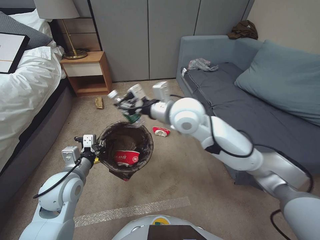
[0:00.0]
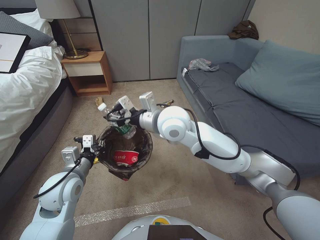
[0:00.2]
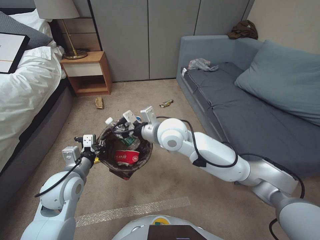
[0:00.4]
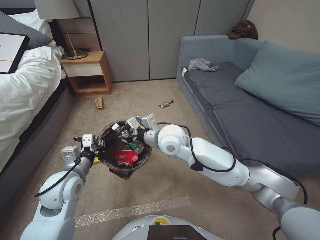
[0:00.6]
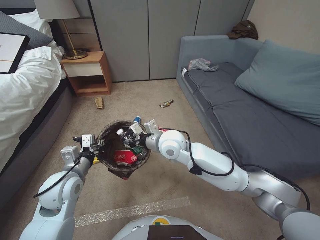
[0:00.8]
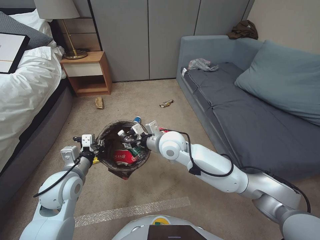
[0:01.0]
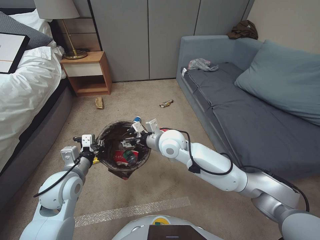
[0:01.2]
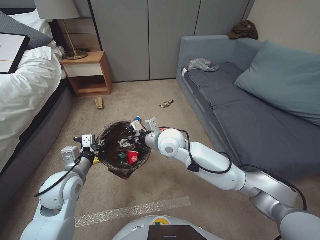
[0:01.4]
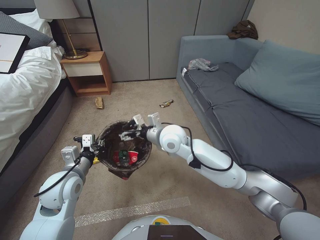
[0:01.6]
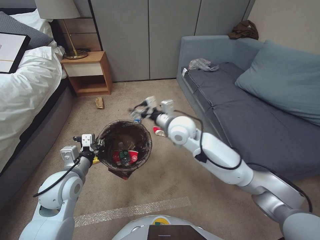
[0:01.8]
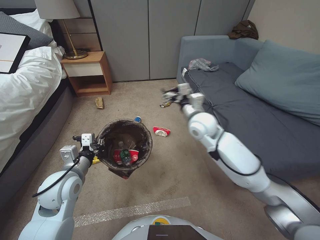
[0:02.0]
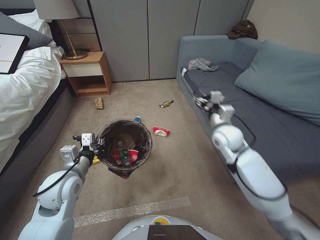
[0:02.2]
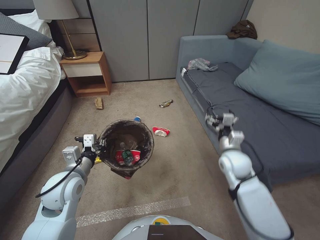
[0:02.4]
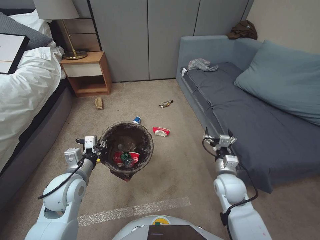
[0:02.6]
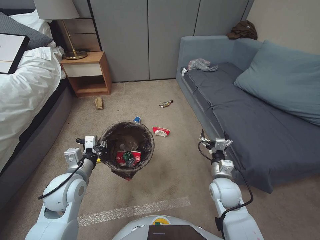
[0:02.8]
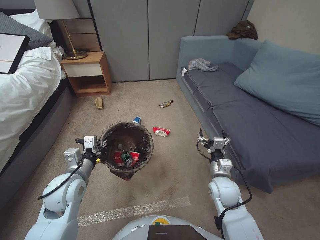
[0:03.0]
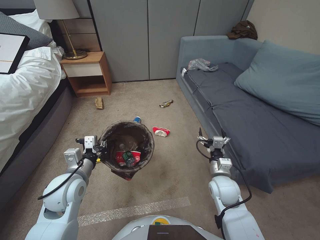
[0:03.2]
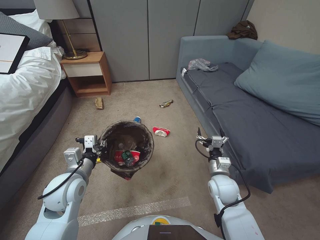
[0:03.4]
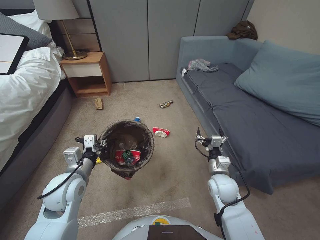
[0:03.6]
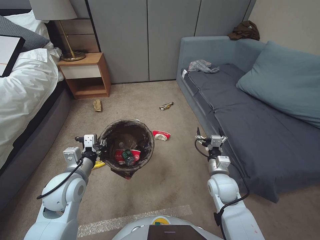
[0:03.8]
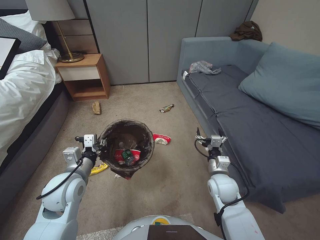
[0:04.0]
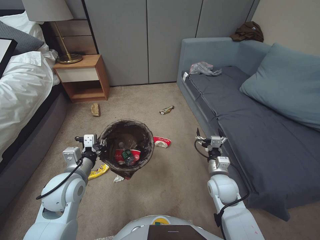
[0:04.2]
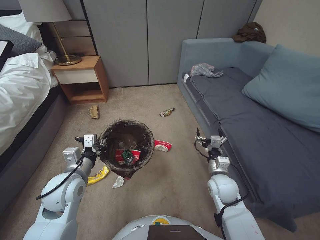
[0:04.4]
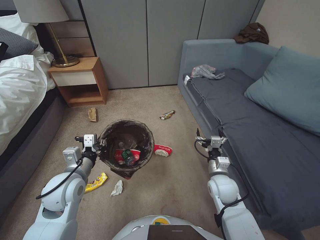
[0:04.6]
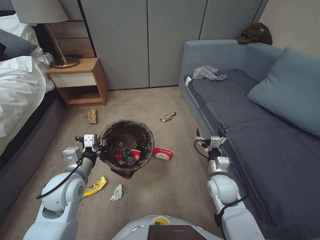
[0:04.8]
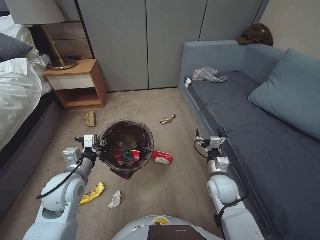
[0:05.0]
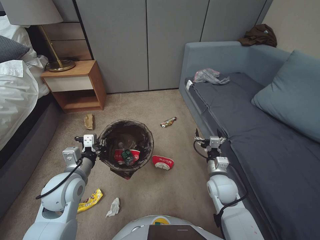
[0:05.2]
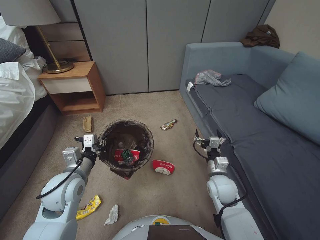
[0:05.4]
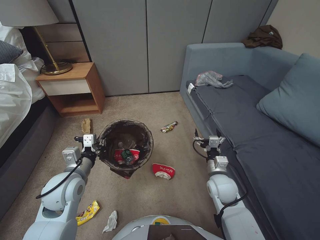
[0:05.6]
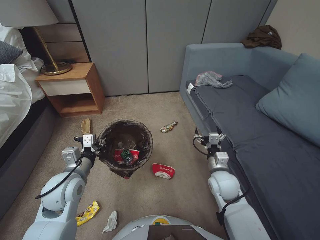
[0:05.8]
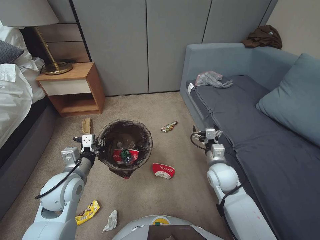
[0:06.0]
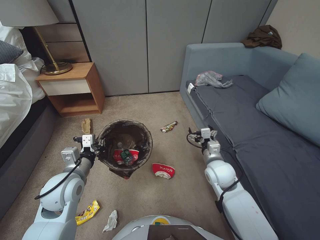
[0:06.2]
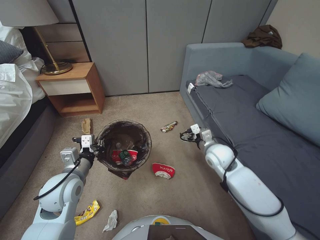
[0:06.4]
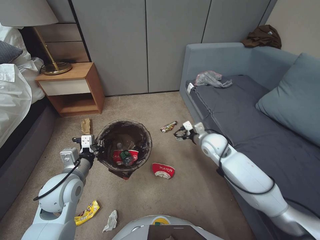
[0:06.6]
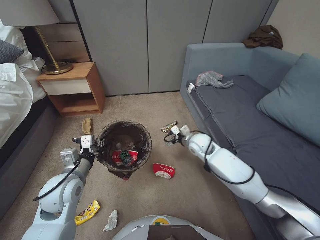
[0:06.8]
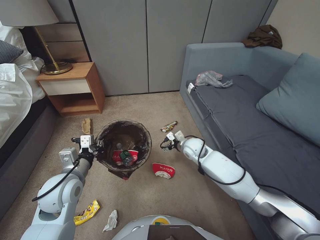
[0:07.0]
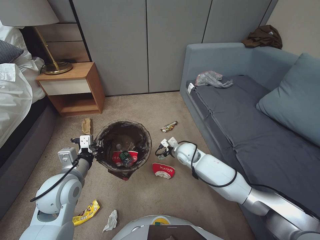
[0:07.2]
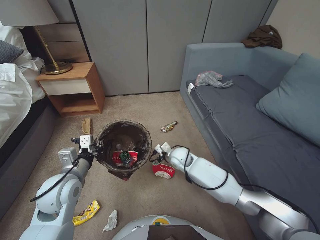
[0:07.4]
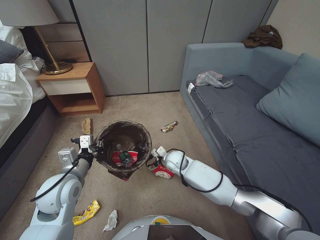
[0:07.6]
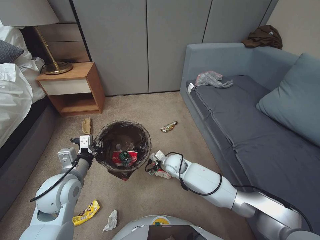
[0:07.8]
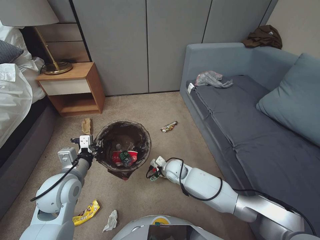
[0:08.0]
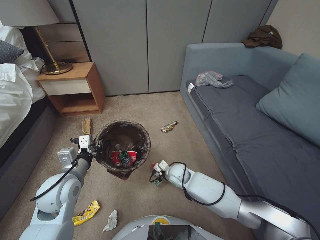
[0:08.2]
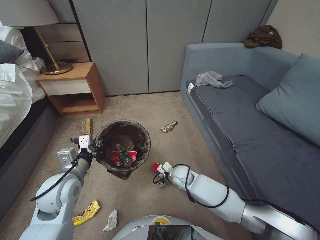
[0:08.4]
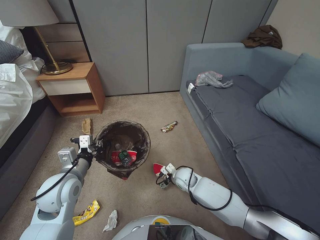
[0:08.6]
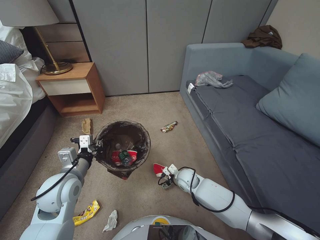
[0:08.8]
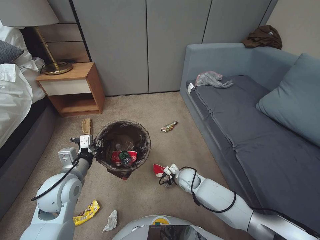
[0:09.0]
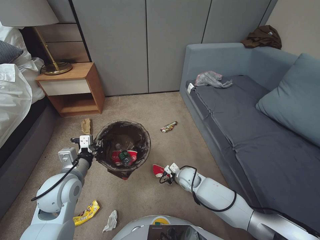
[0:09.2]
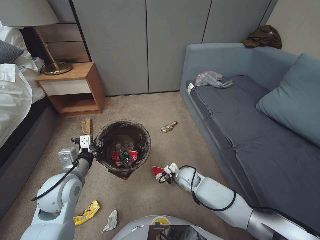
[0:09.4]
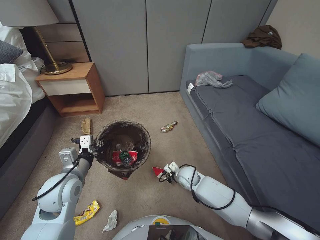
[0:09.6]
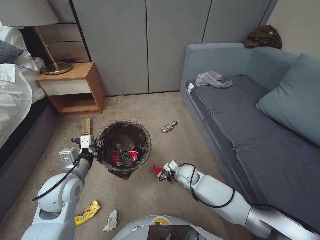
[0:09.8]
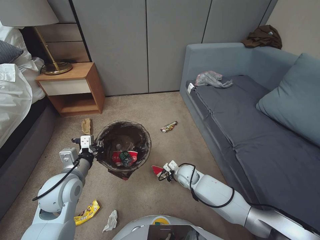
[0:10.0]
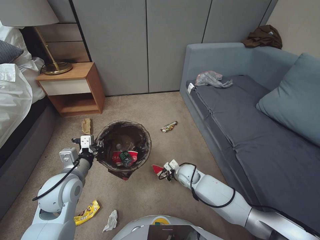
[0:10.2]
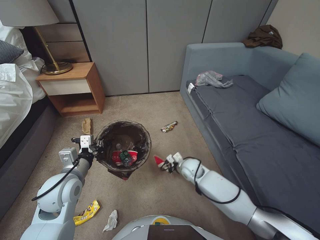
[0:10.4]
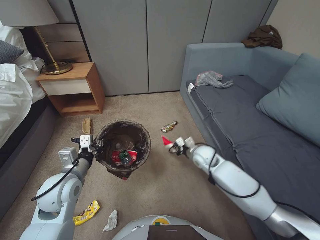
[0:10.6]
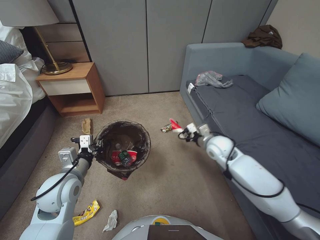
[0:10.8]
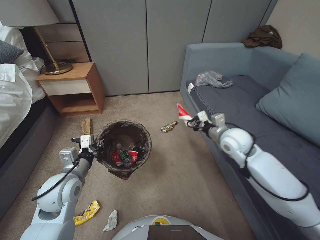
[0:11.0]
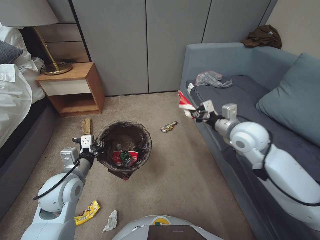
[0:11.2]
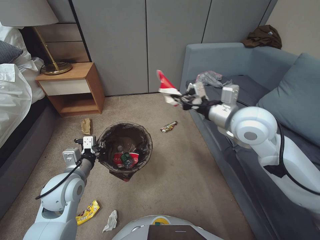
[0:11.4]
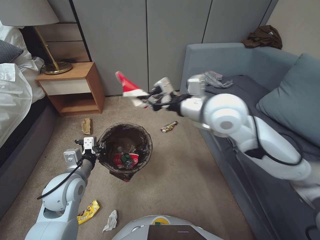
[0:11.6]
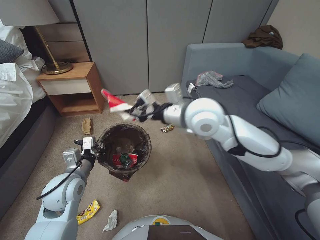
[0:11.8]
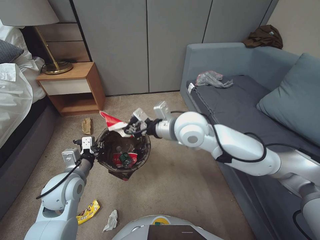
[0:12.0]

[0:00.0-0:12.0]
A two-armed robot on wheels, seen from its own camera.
Task of the whole recording: Pick up the trash bin, then pick up the garbage from the floor and place it into the trash bin.
0:00.0 to 0:01.6: The right gripper moves downward and to the left, some 15 cm, and opens up.
0:01.6 to 0:03.0: The right gripper goes roughly 30 cm to the right, downward and backward.
0:06.0 to 0:07.6: The right gripper moves to the left, forward and downward, approximately 20 cm.
0:07.6 to 0:09.0: The right gripper is displaced downward, backward and to the right by roughly 10 cm.
0:09.0 to 0:10.4: The right gripper closes its fingers.
0:10.4 to 0:12.0: The right gripper moves upward, some 35 cm.

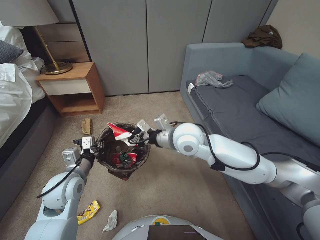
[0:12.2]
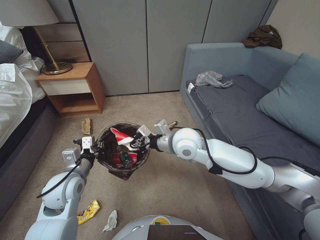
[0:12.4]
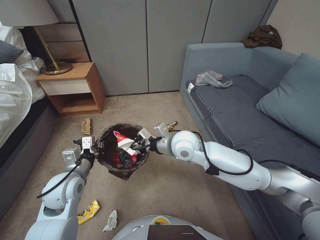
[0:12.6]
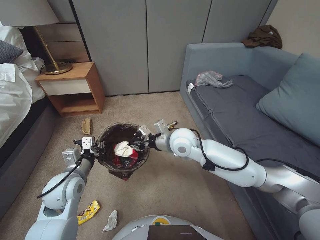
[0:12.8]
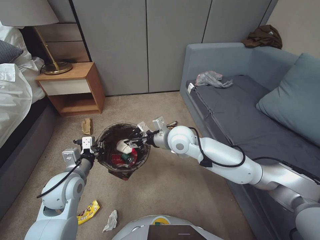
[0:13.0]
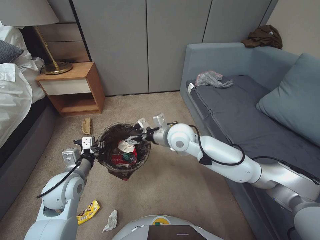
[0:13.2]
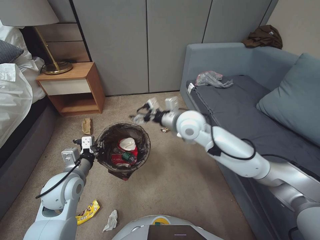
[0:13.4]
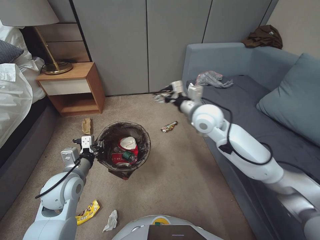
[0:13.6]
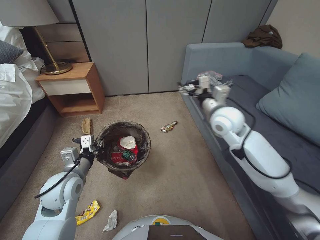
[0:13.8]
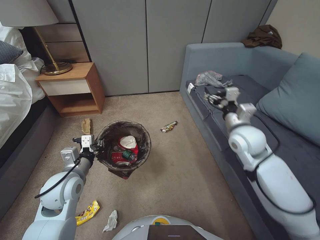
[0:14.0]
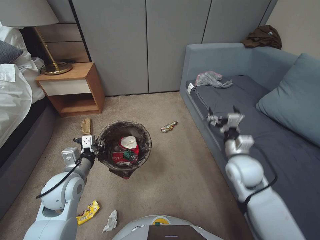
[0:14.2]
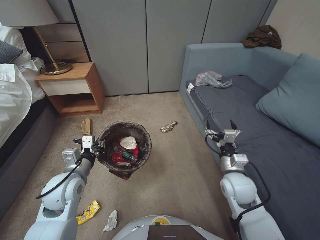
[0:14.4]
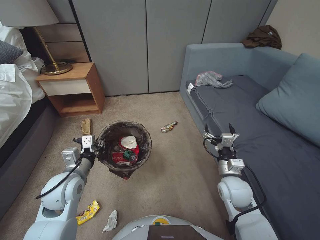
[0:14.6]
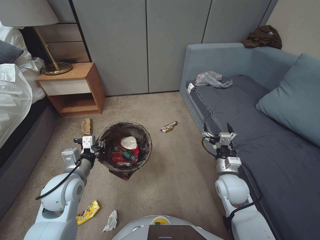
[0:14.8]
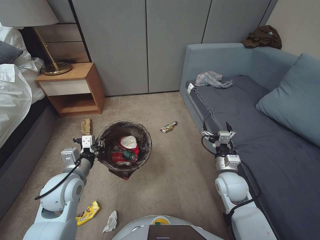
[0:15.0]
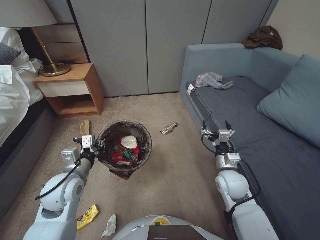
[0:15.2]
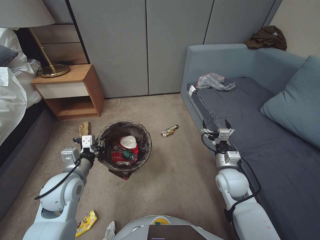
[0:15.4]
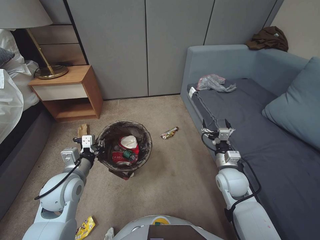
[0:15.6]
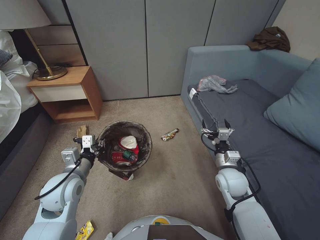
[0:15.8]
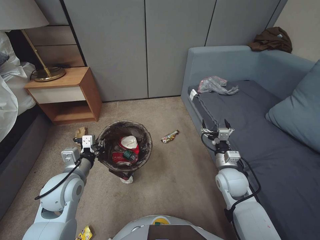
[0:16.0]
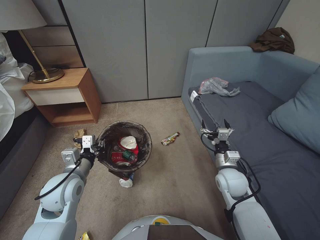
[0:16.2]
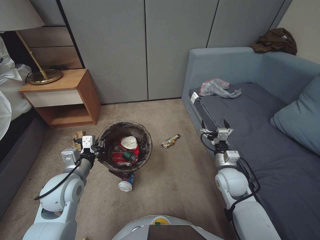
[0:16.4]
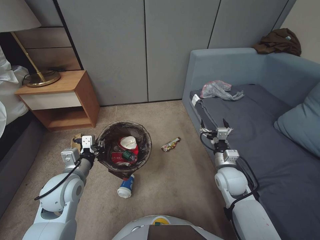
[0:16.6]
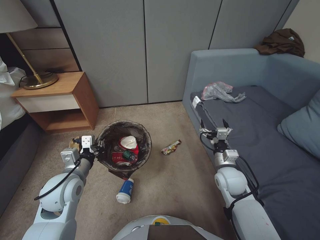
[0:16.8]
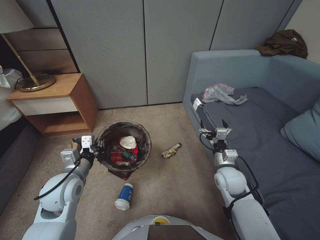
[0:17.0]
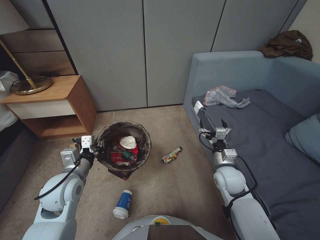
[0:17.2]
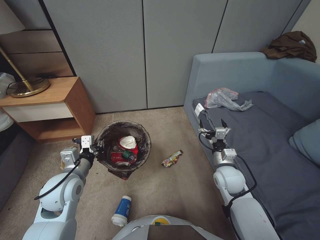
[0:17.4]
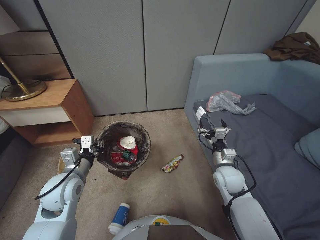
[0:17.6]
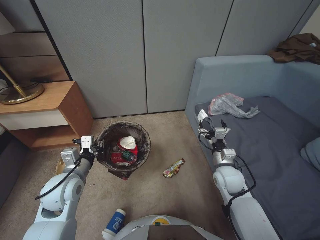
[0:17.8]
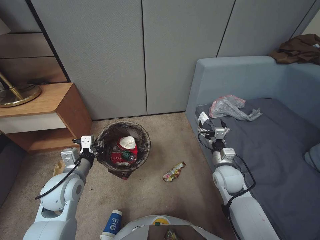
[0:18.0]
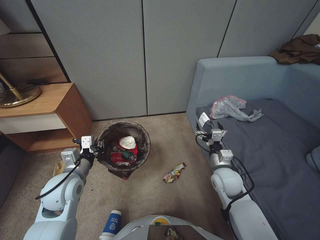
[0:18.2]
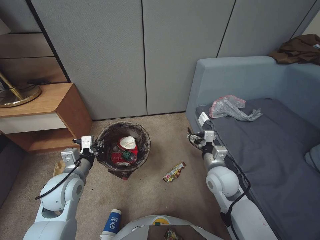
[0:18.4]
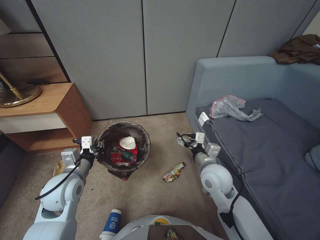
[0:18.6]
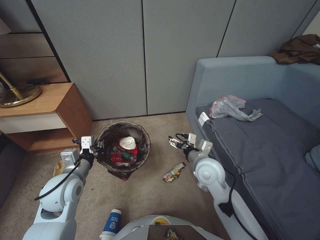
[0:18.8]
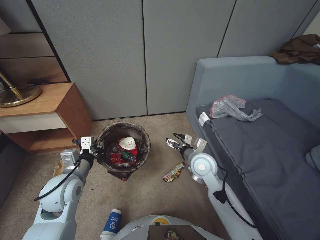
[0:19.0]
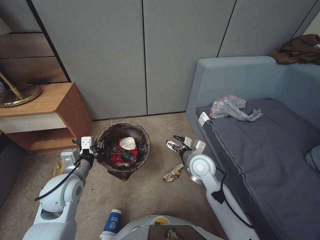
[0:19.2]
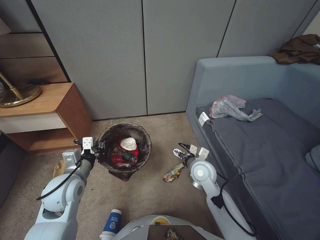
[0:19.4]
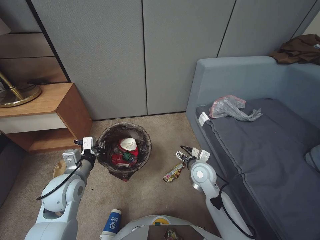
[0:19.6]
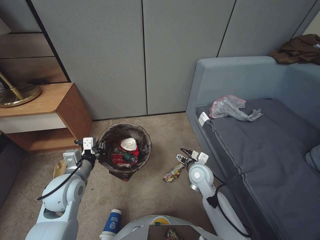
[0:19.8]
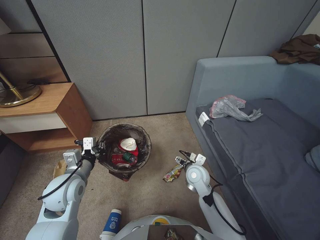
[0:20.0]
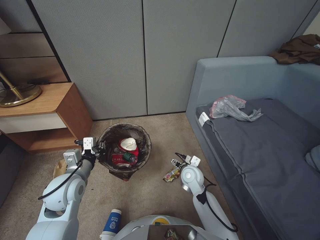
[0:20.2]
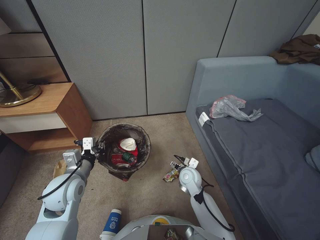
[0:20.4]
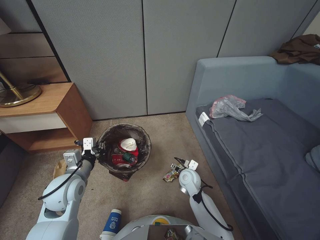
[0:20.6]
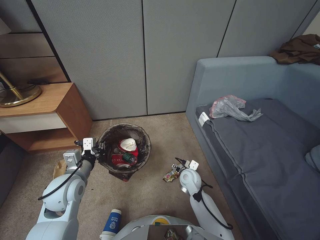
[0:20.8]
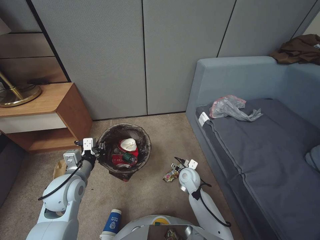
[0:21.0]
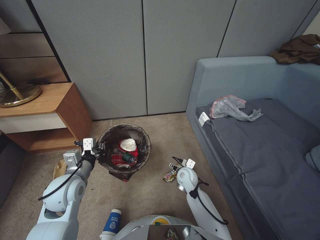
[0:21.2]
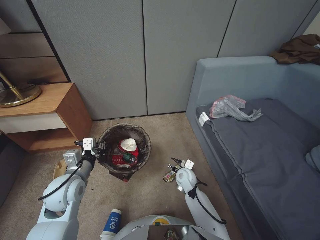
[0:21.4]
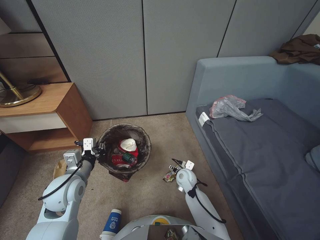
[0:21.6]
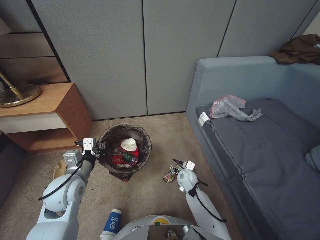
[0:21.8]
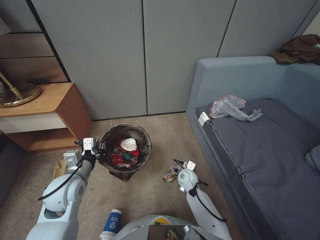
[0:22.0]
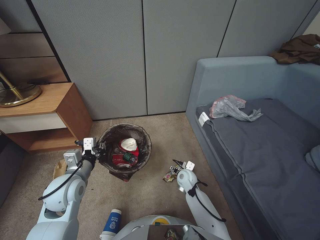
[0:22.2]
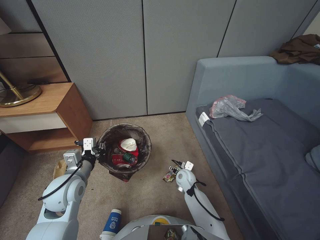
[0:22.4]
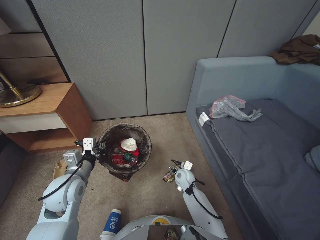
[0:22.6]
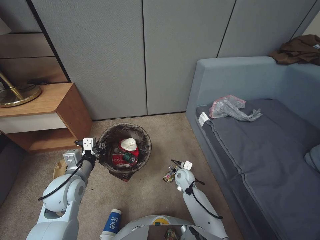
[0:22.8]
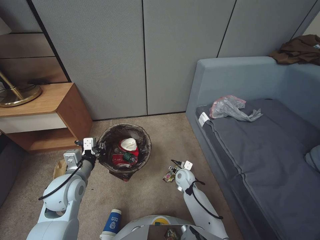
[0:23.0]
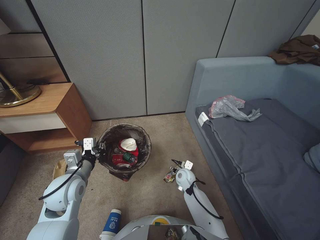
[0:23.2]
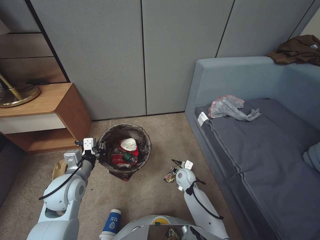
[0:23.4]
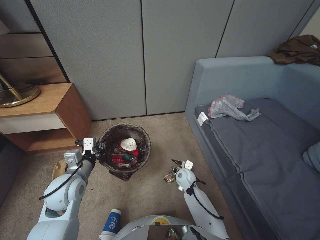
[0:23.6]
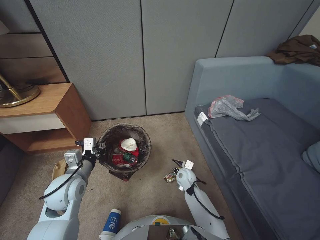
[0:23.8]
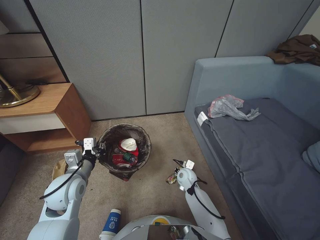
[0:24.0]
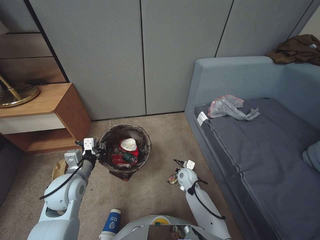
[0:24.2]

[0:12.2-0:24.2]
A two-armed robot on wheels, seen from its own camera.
Task of the whole recording: Pick up the trash bin, then pick up the garbage from the floor and place it into the trash bin.
0:12.2 to 0:13.8: The right gripper goes some 15 cm to the right and forward, and opens up.
0:13.8 to 0:15.2: The right gripper goes some 25 cm downward and backward.
0:18.2 to 0:19.8: The right gripper moves to the left, approximately 10 cm.
0:19.8 to 0:21.2: The right gripper travels downward by roughly 10 cm.
0:21.2 to 0:22.6: The grippers make only small movements.
0:22.6 to 0:24.2: The right gripper closes up.
